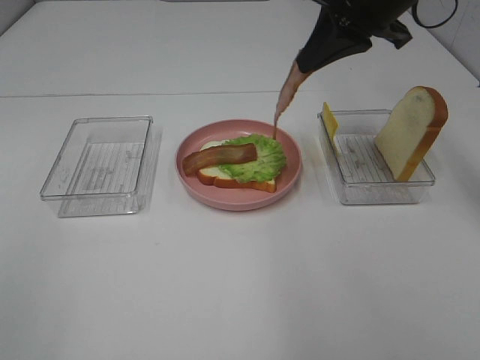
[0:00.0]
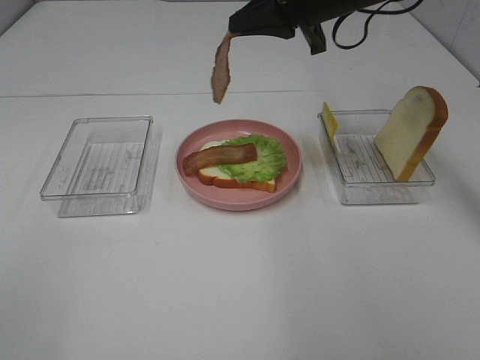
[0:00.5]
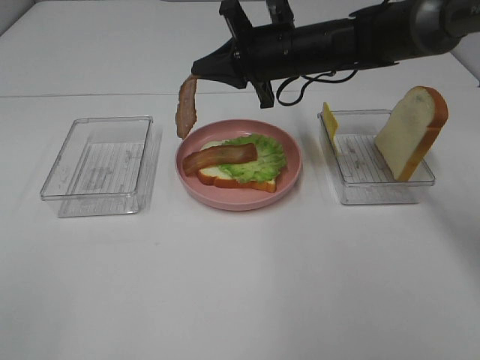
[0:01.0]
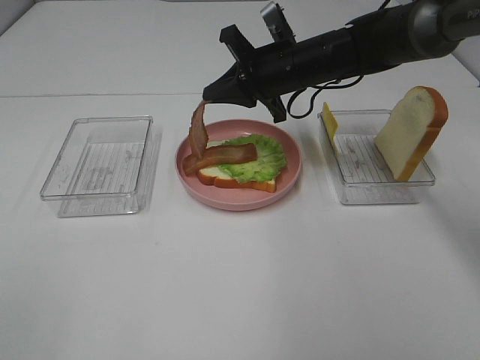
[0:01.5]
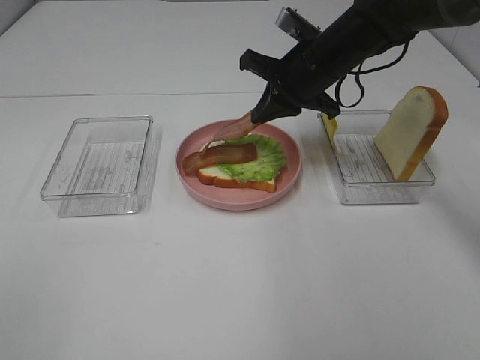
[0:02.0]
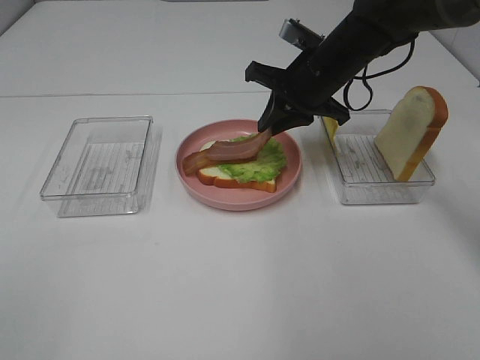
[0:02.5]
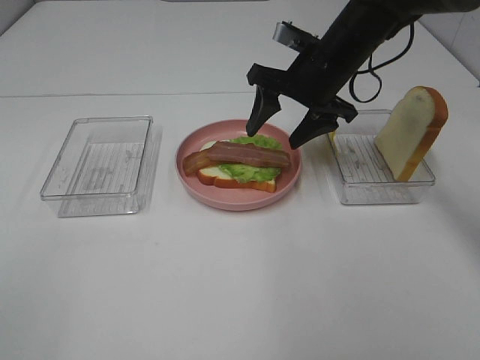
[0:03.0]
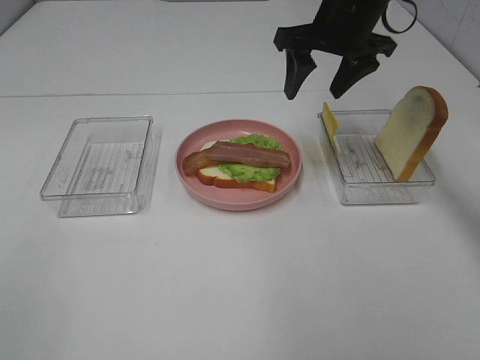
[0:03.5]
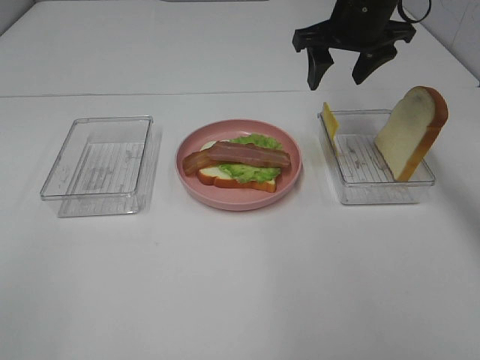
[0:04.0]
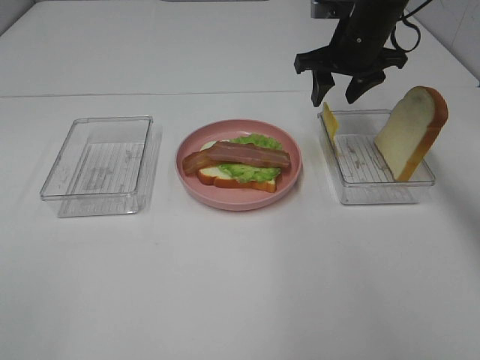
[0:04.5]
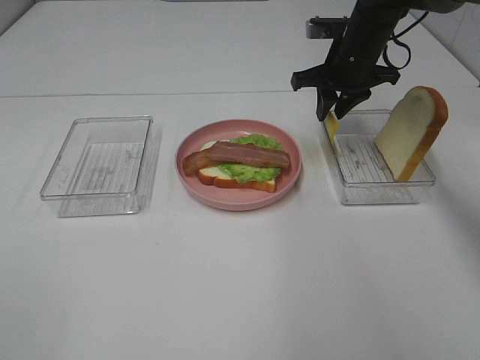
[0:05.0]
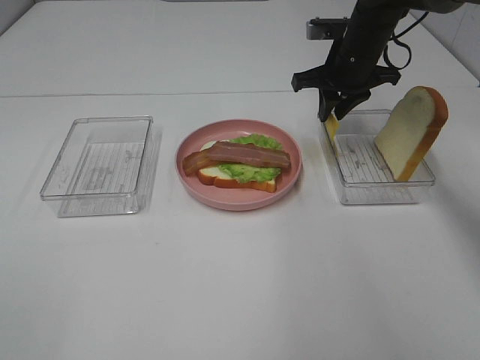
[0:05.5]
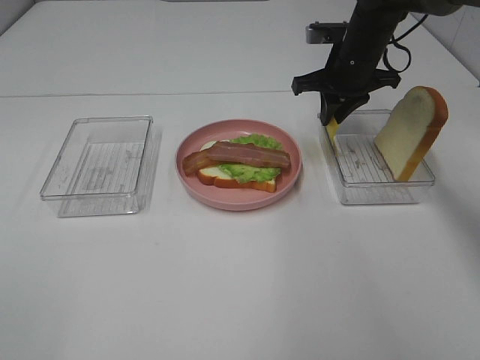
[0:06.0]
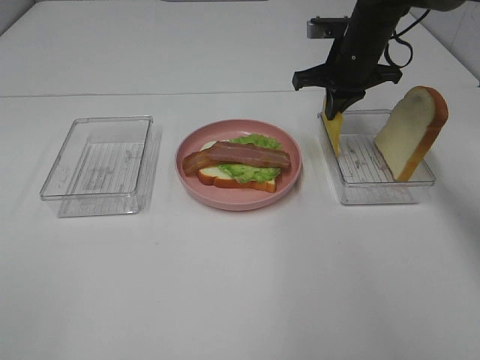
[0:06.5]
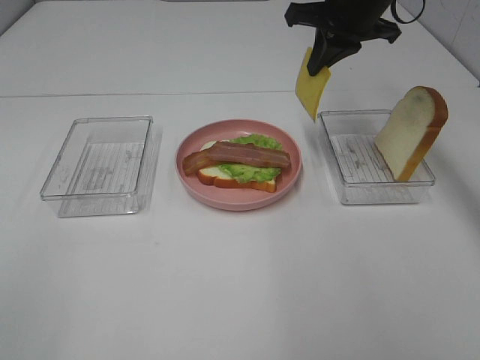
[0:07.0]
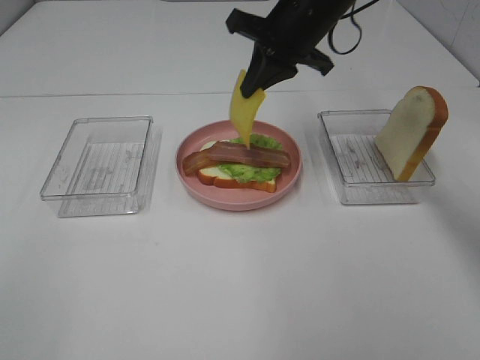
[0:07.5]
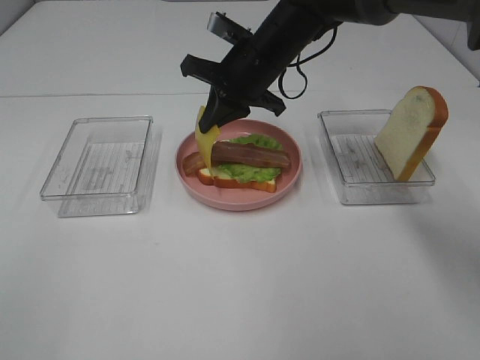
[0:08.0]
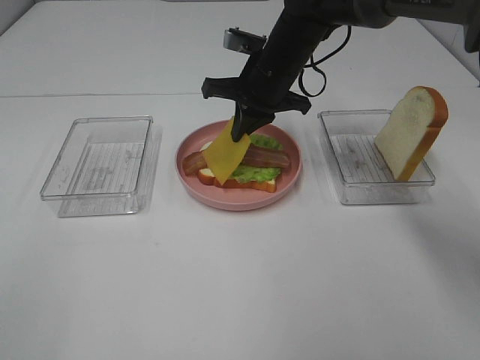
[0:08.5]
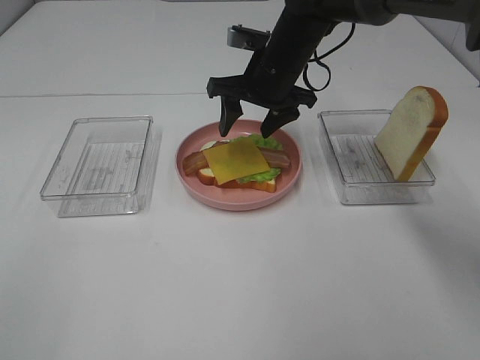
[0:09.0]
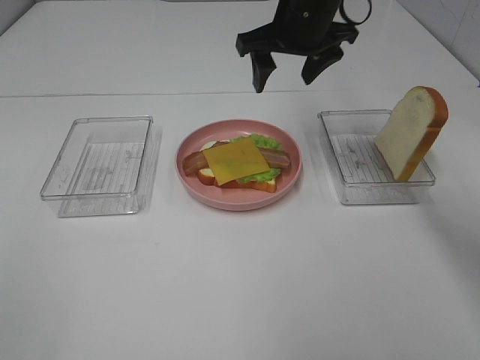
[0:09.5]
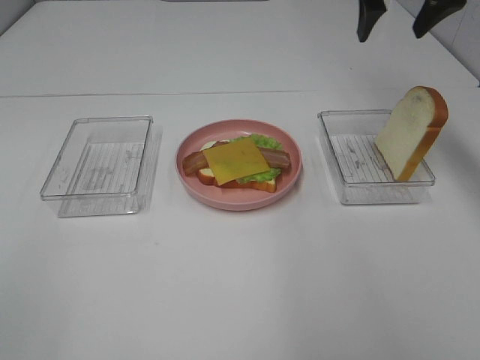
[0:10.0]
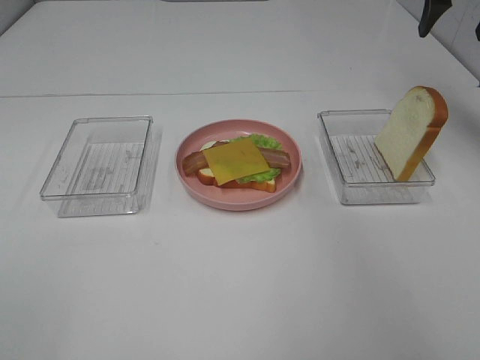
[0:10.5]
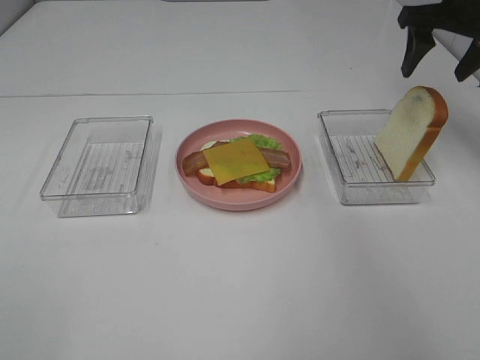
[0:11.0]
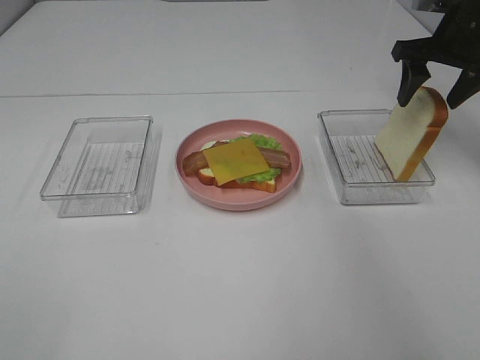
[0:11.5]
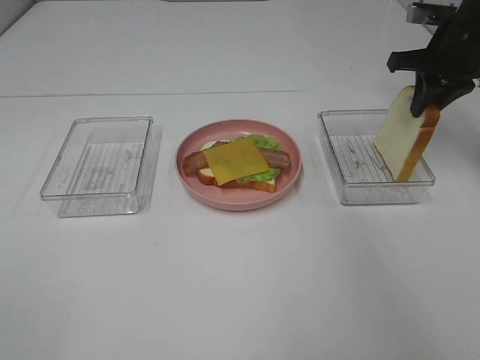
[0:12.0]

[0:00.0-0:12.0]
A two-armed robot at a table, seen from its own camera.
Task of the whole recording: Make sandwiches.
Step, 0:00.0 to 0:03.0: Right hand:place bacon on bacon.
Step, 0:03.5 to 0:06.0: Right hand:grab the cheese slice.
Step, 0:06.5 to 0:09.0: Right hand:place the cheese slice on top of the bacon.
0:00.0 to 0:02.0: The right gripper goes some 15 cm downward and forward.
0:02.0 to 0:04.0: The right gripper moves upward, some 5 cm, and opens up.
0:04.0 to 0:06.0: The right gripper shifts some 5 cm downward, and closes up.
0:06.0 to 0:08.0: The right gripper goes some 15 cm to the left.
0:08.0 to 0:10.0: The right gripper travels to the right and upward by about 25 cm, and opens its fingers.
0:10.0 to 0:12.0: The right gripper heads downward and to the right, covering about 10 cm, and closes its fingers.

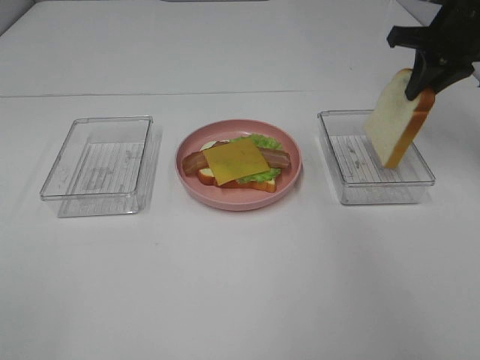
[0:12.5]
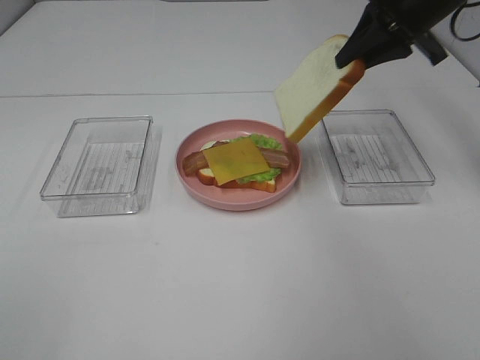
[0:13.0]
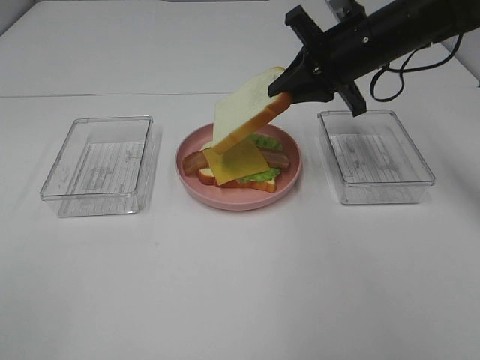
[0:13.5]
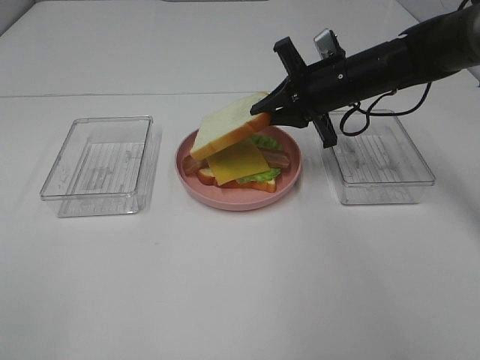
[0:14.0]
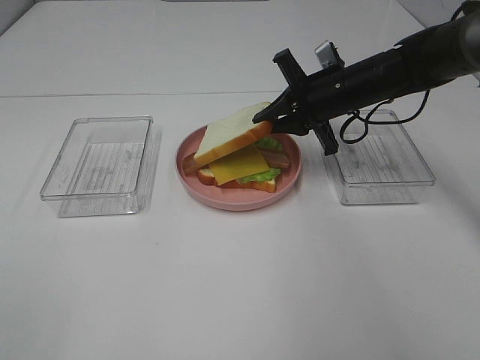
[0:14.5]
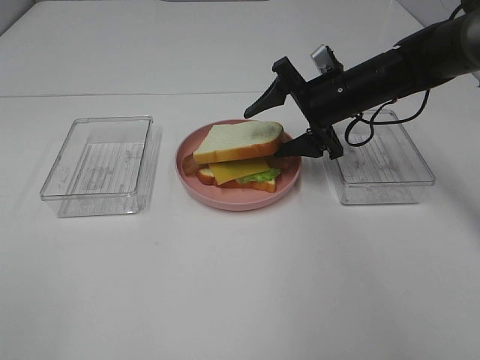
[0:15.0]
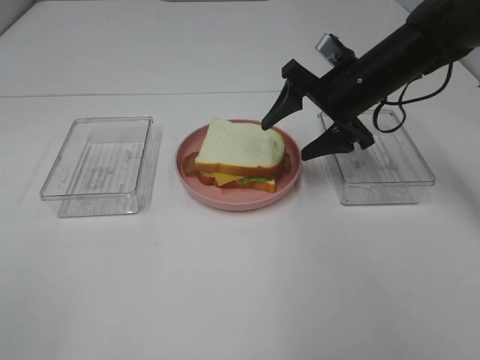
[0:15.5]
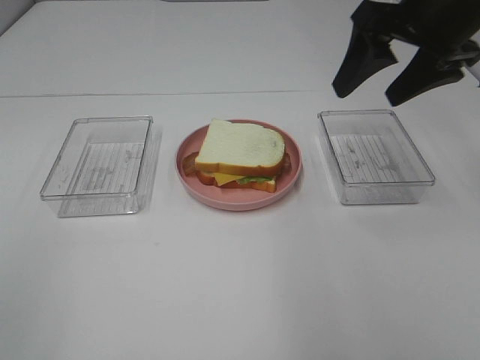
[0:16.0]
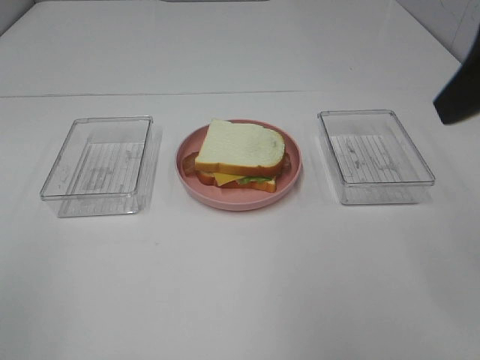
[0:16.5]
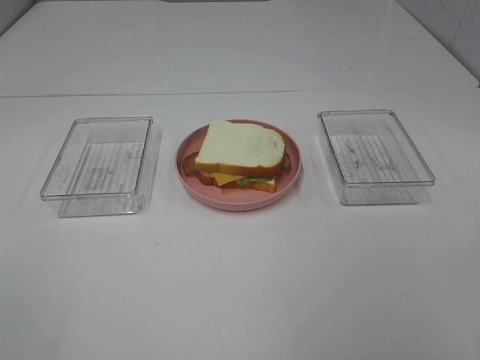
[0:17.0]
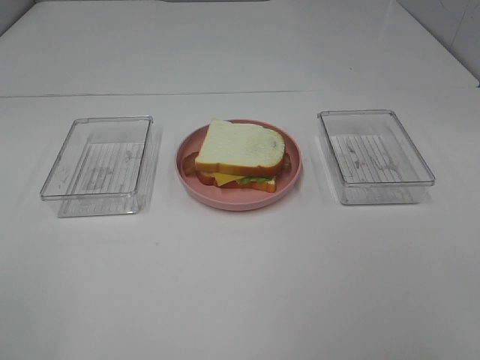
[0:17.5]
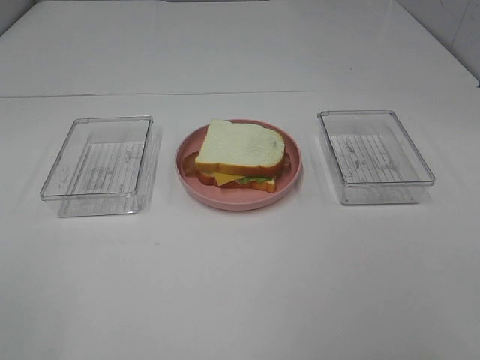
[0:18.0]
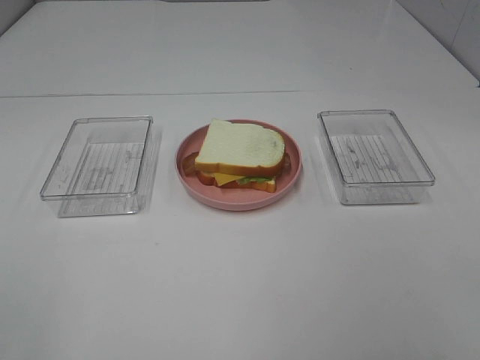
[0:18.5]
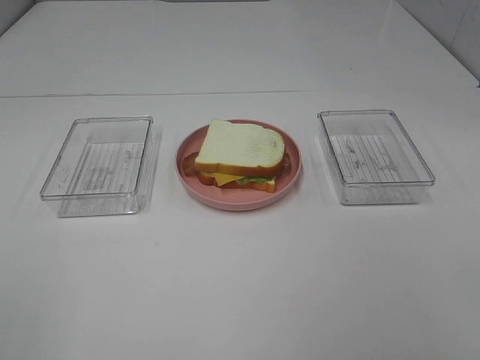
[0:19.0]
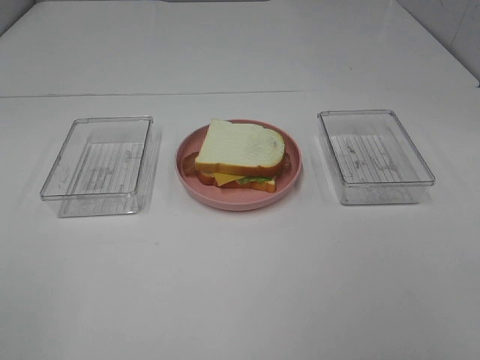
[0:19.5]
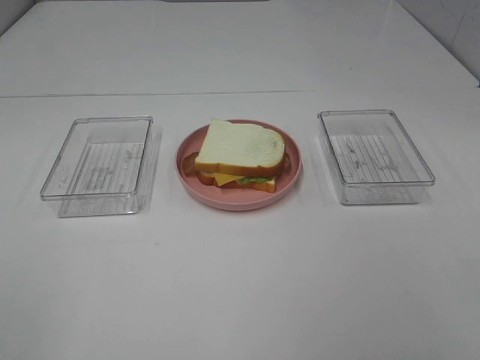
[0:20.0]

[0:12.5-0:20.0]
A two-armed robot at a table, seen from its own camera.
Task of the whole recording: Make sandwiches.
Step, 0:12.5 to 0:15.5: Right hand:place the bread slice on the cheese slice.
0:12.5 to 0:14.5: The right gripper shifts some 15 cm to the left and downward.
0:14.5 to 0:16.5: The right gripper travels backward and upward by approximately 30 cm, and opens up.
0:16.5 to 0:18.0: The right gripper travels backward and downward by roughly 20 cm.

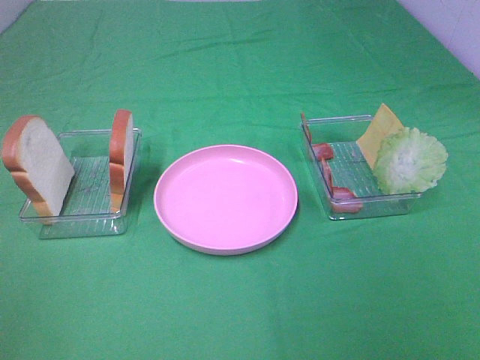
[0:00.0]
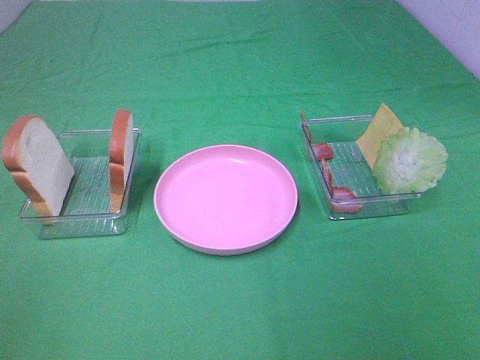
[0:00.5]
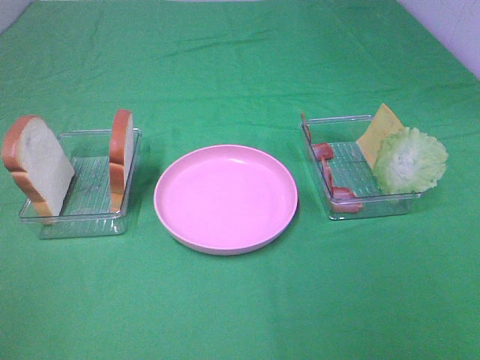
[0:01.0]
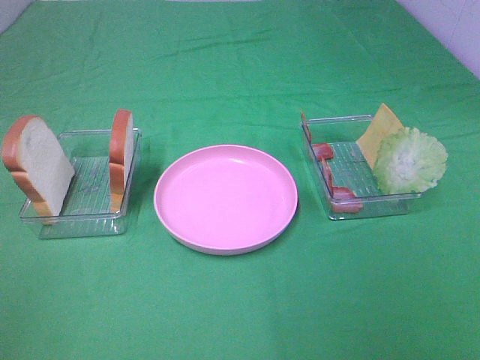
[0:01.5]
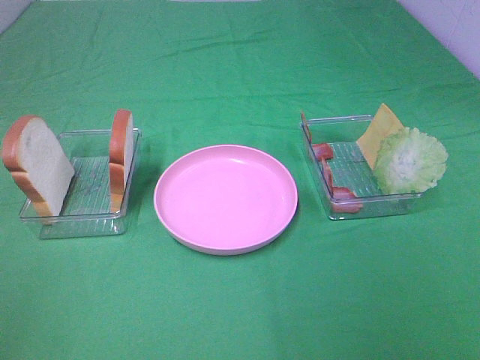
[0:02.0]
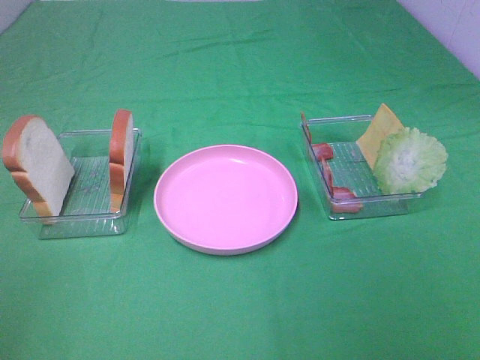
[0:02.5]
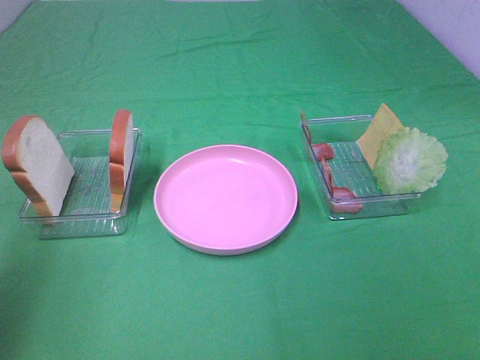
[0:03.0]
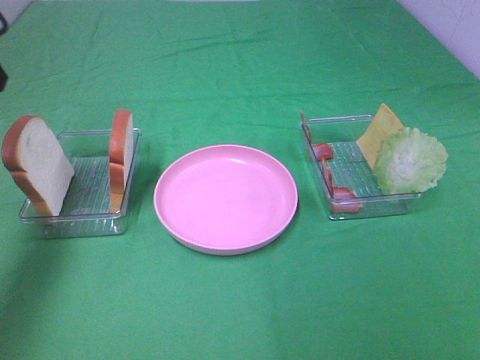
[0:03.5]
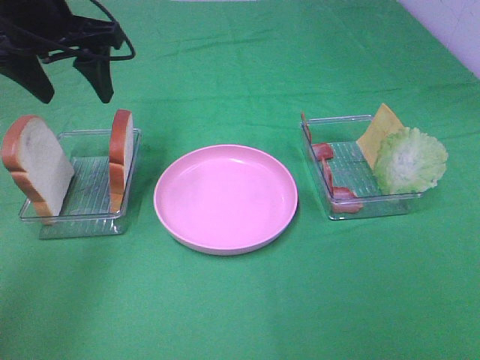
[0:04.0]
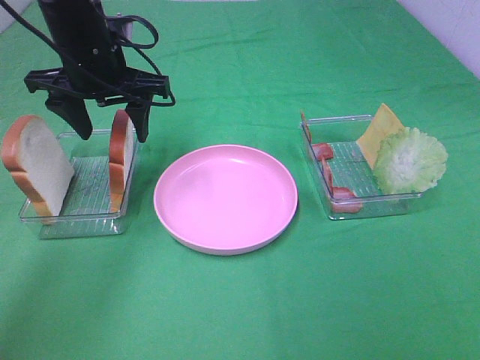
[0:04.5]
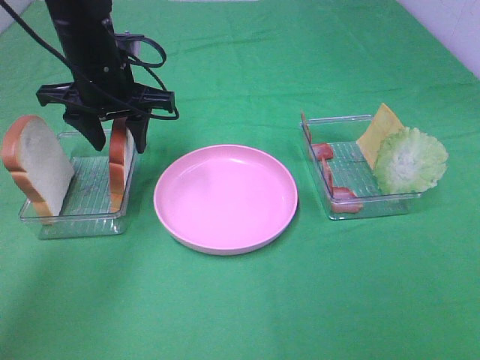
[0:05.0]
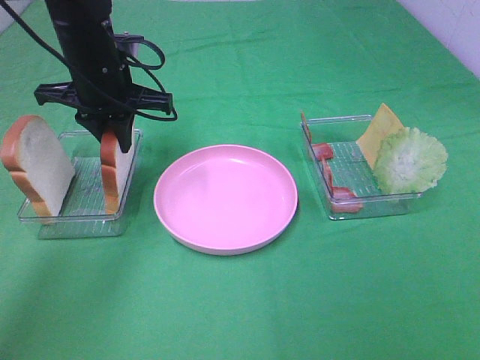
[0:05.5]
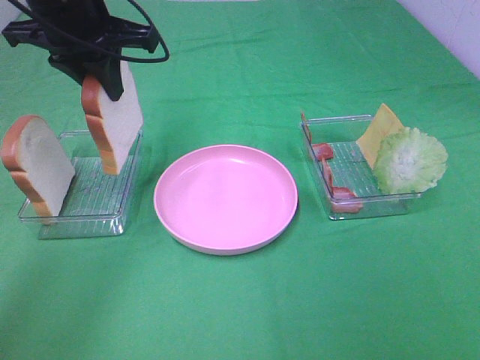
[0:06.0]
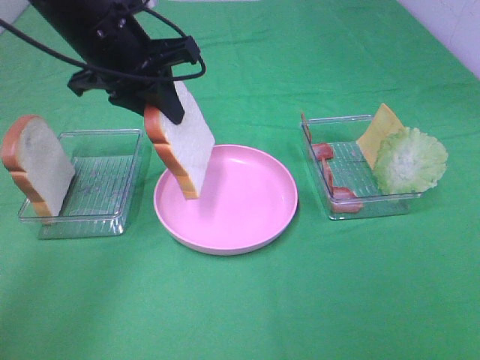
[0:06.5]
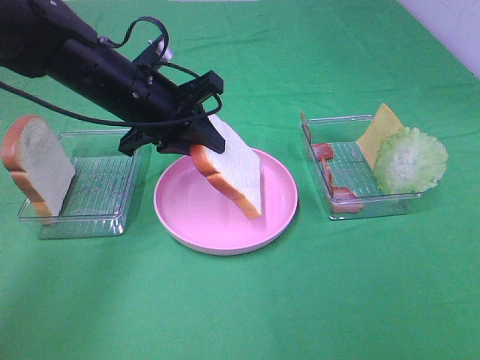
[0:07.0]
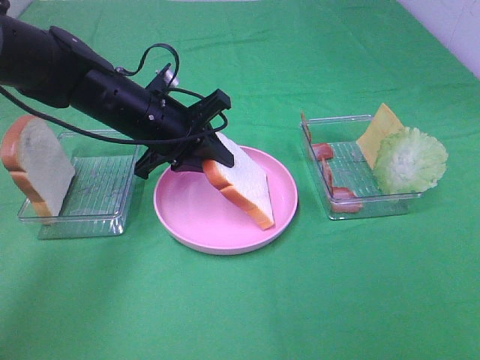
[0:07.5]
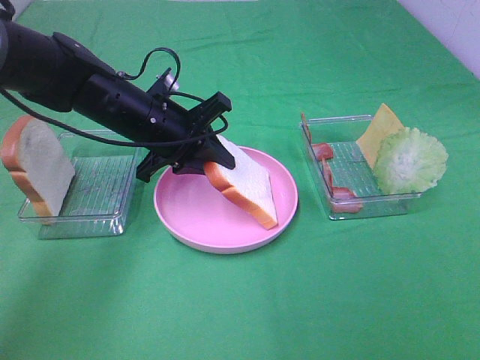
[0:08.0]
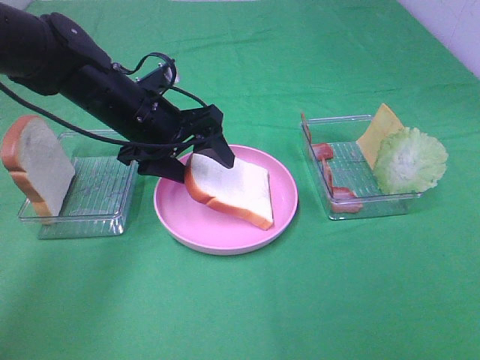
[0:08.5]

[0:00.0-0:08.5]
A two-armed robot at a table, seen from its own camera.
Task of the whole recording: Make sandwiches.
Step, 0:00.0 to 0:05.0: Left hand:grab the bread slice.
0:00.0 to 0:02.0: Both grippers stay about where they are.
0:02.0 to 0:04.0: The left gripper shifts some 40 cm forward.
0:04.0 to 0:06.5: The left gripper swings up and down, roughly 10 cm each way, with 2 reversals, and closes.
0:06.5 to 0:08.5: The left gripper shifts about 10 cm downward, and opens its fingers.
